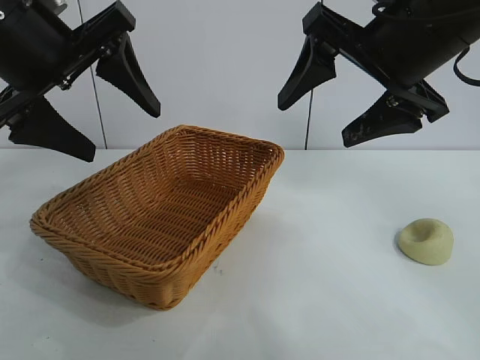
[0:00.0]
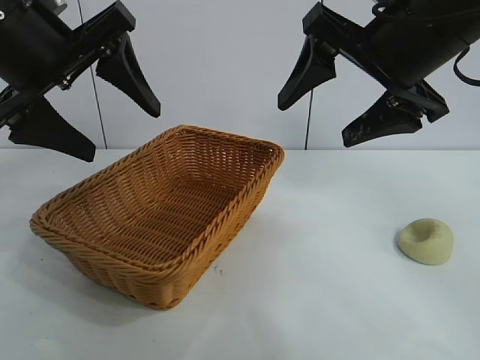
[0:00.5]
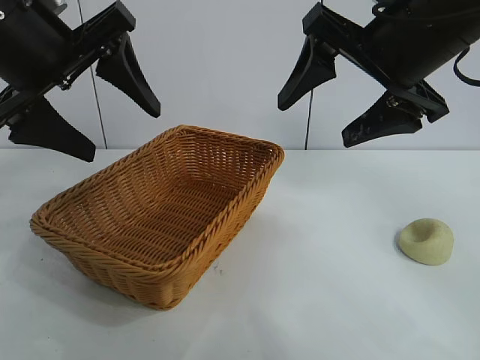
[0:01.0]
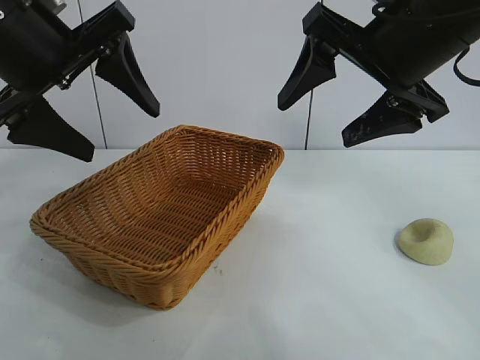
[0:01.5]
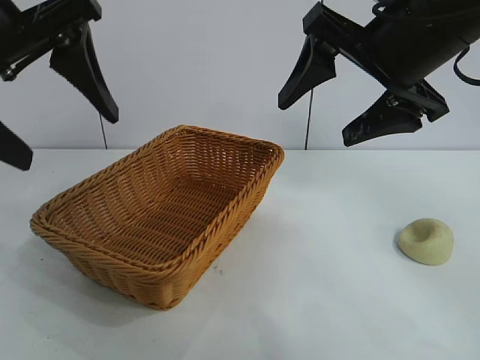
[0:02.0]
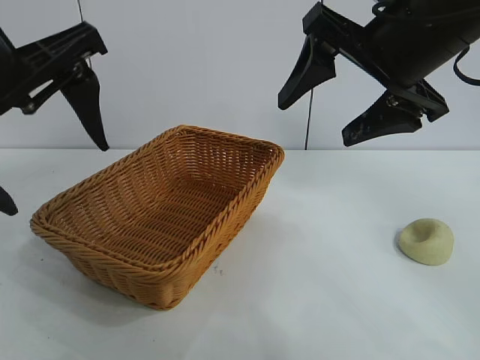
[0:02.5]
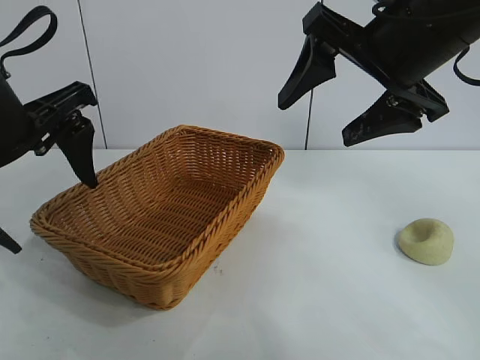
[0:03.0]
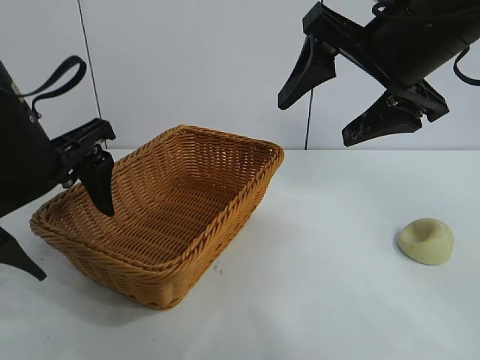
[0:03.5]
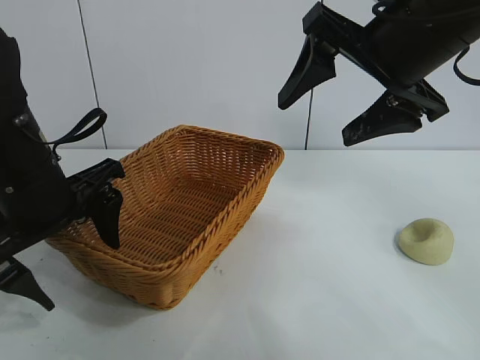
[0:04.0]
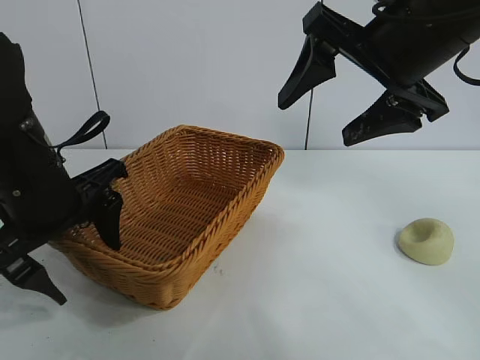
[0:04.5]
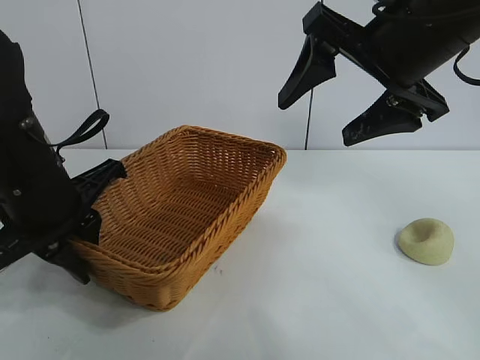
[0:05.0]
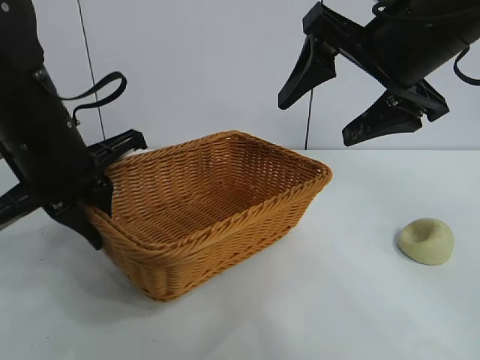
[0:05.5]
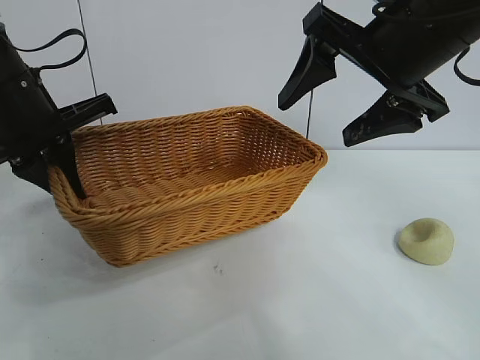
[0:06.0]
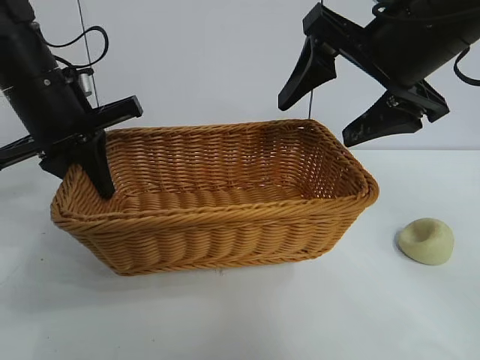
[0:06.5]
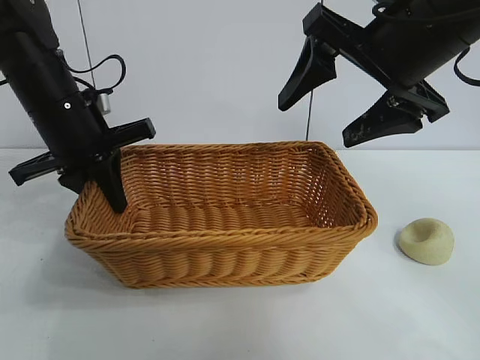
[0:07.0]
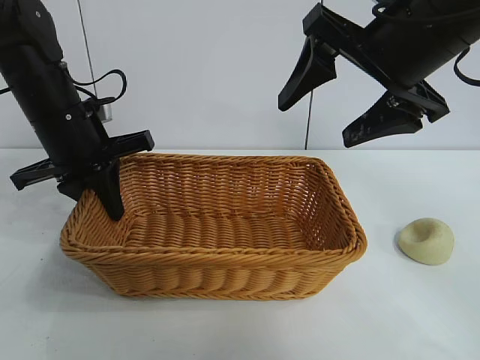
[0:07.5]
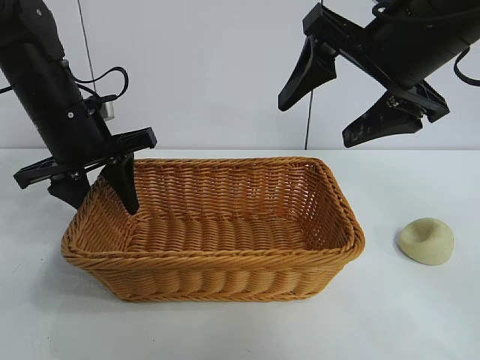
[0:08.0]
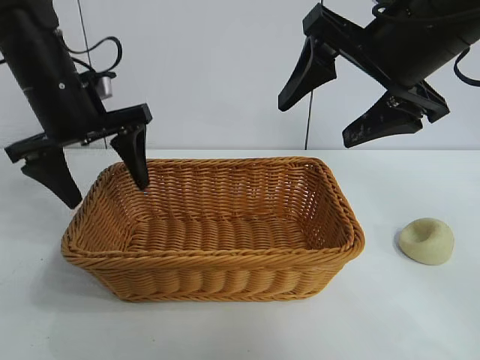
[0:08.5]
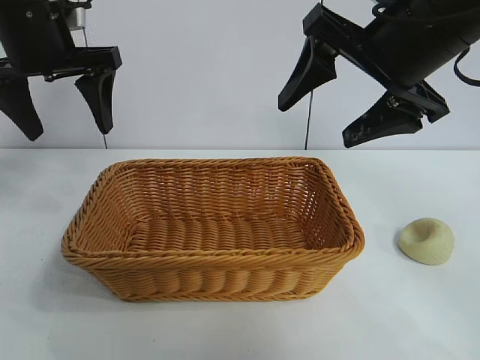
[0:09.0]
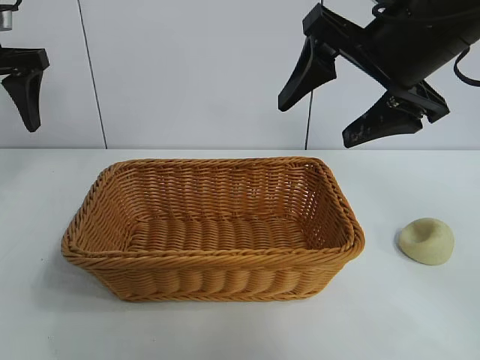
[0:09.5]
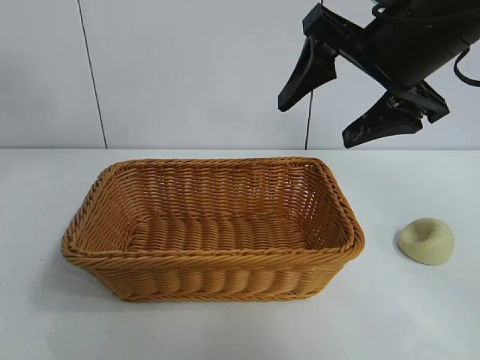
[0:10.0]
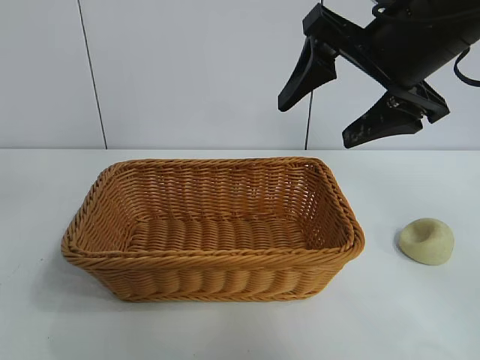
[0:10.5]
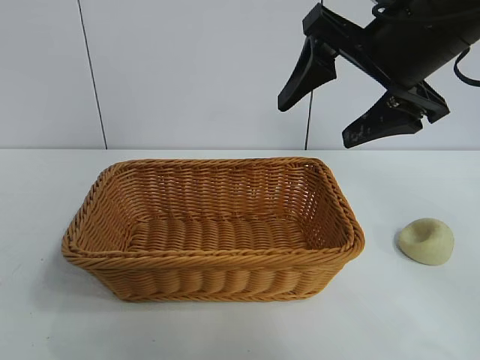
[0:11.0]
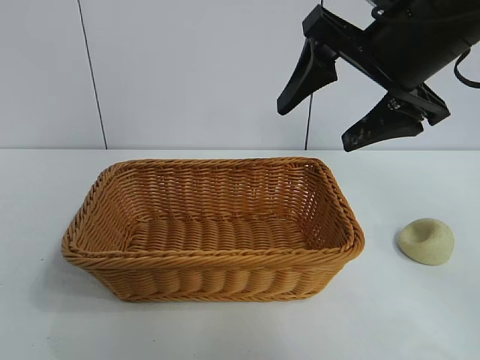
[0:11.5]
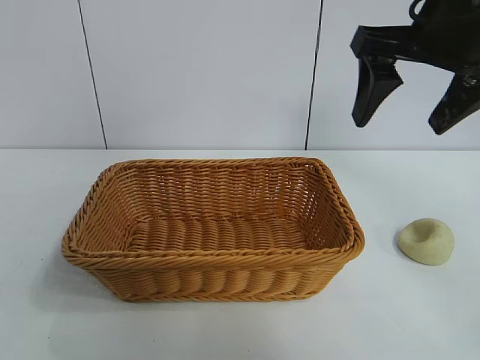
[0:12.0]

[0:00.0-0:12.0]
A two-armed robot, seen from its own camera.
Task of the whole recording: pick up the egg yolk pastry and put it into the basket.
Step, 0:01.5 to 0:05.0: Grasp the basket with left gripper.
Step, 0:05.5 to 0:08.0: Place the basket in the center of view with left gripper.

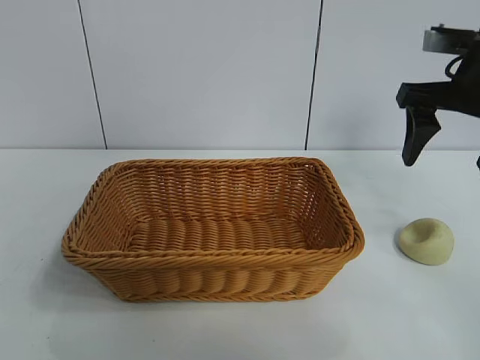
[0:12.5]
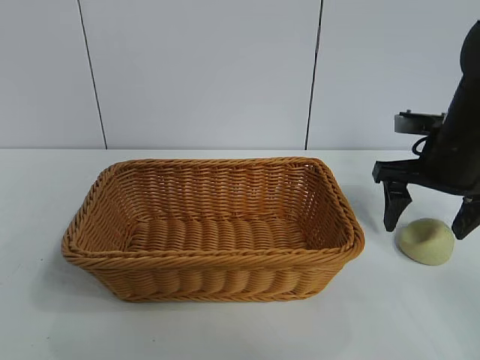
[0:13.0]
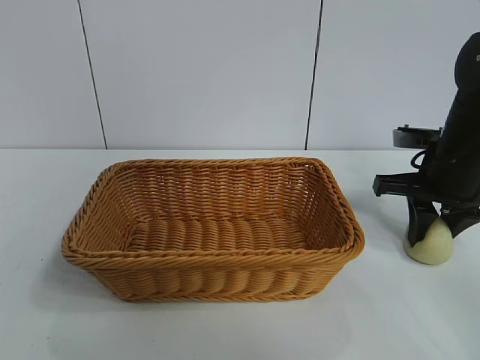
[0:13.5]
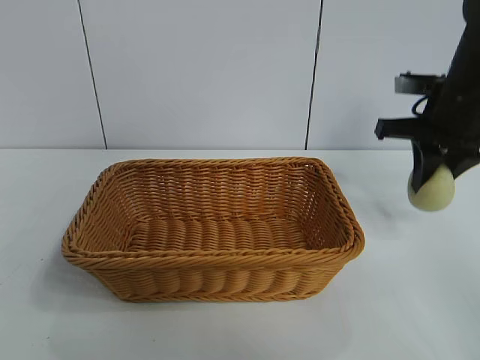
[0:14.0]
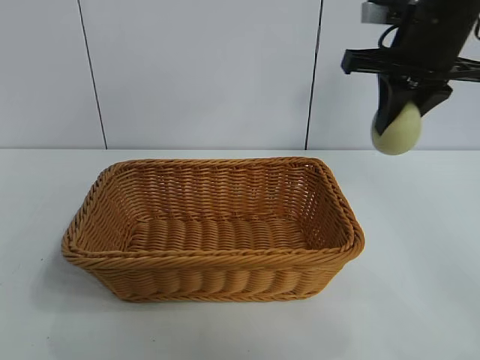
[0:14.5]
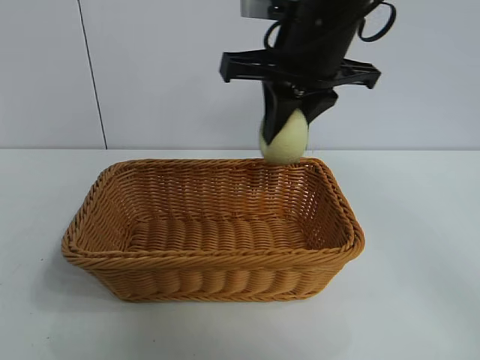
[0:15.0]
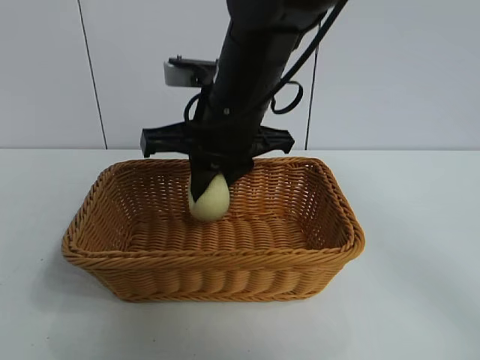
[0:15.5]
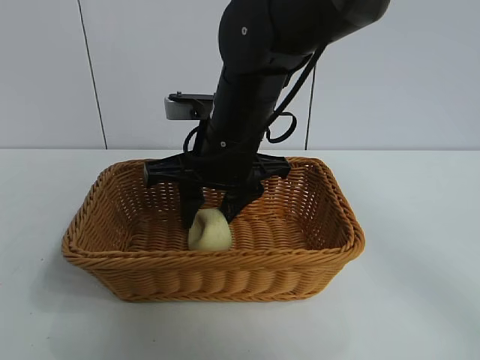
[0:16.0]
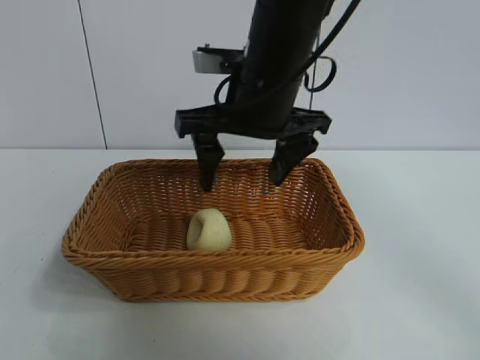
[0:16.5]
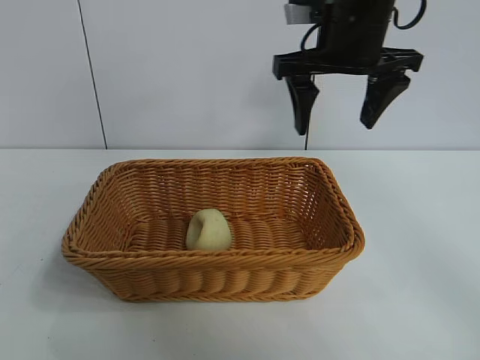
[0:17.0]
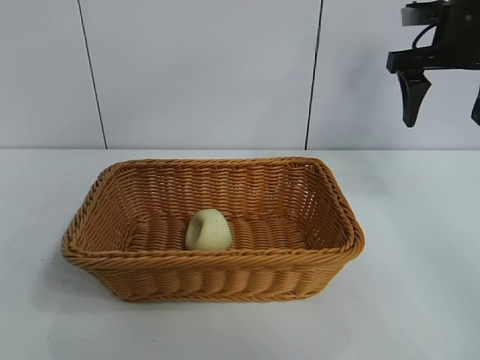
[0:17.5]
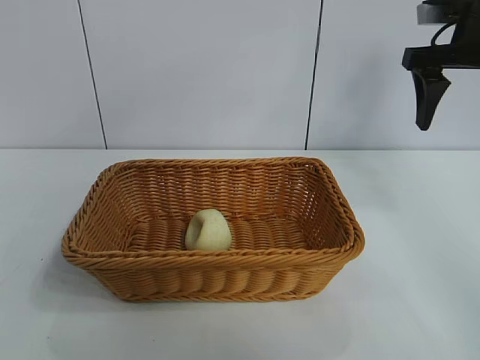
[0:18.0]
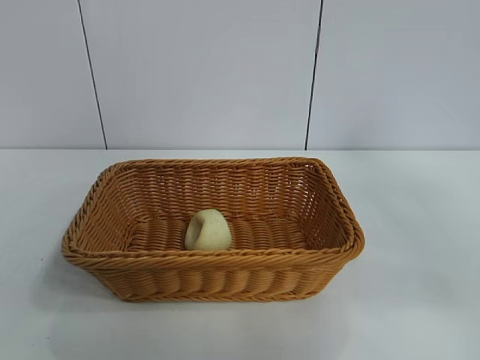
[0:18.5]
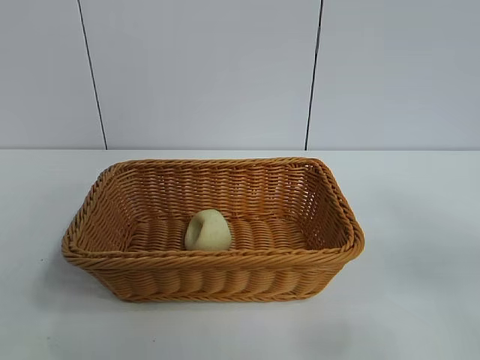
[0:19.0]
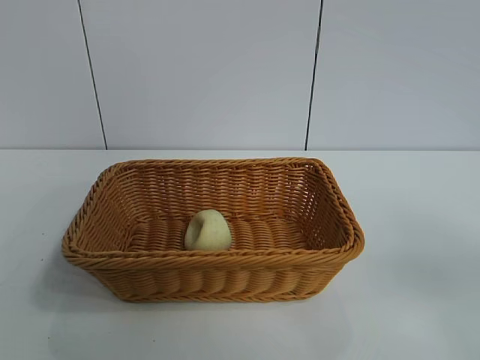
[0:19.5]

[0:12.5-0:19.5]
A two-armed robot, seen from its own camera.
Task of the whole recording: pick up the egg yolk pastry and put it into the basket.
Step, 0:14.0 to 0:16.0: Place the egg yolk pastry in the basket with right gripper.
